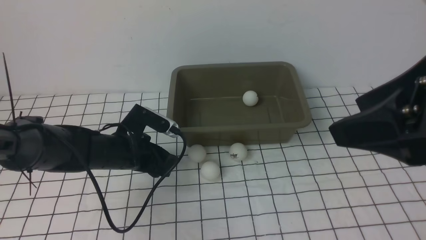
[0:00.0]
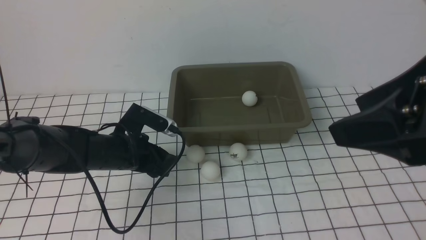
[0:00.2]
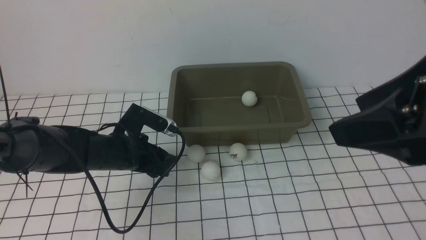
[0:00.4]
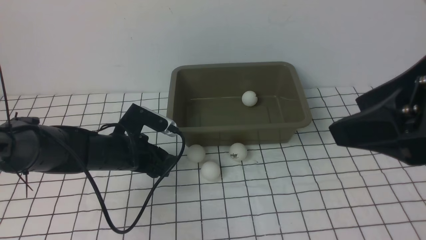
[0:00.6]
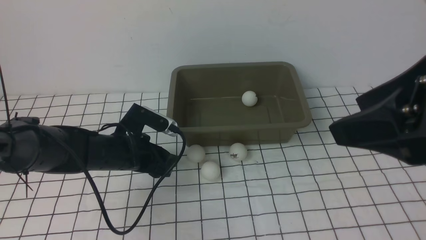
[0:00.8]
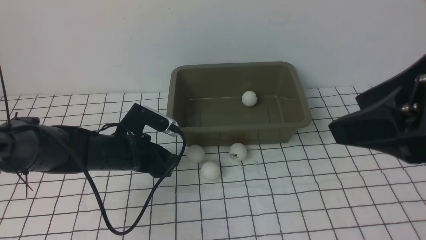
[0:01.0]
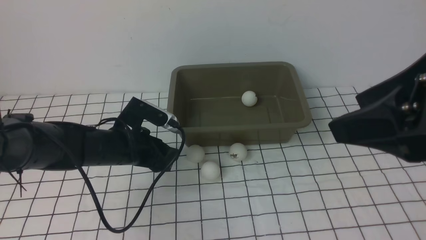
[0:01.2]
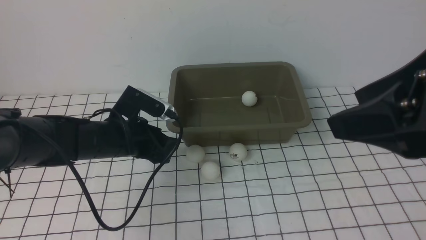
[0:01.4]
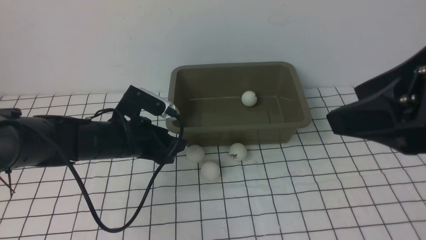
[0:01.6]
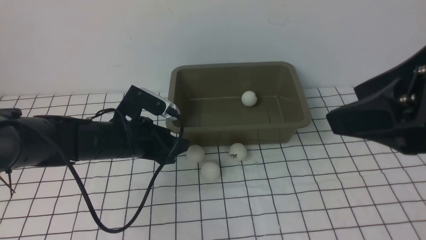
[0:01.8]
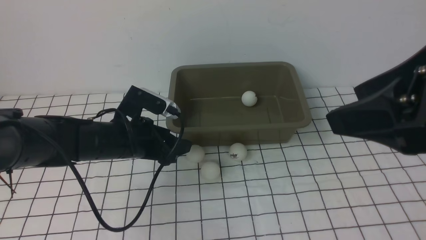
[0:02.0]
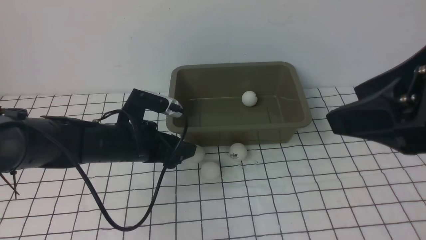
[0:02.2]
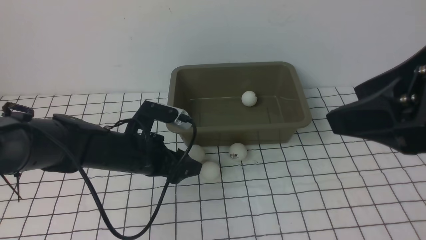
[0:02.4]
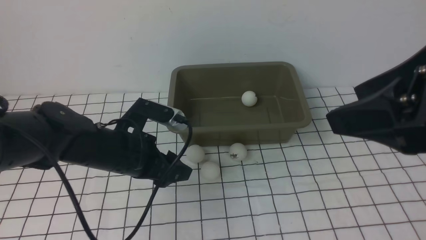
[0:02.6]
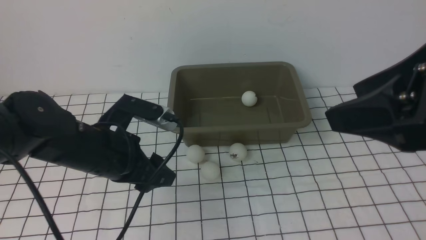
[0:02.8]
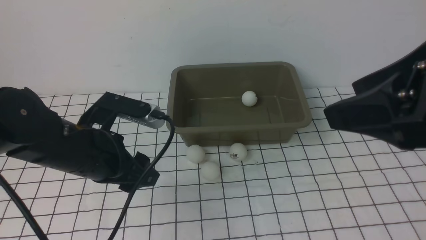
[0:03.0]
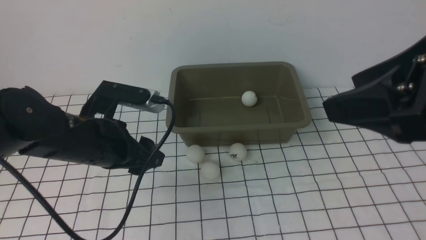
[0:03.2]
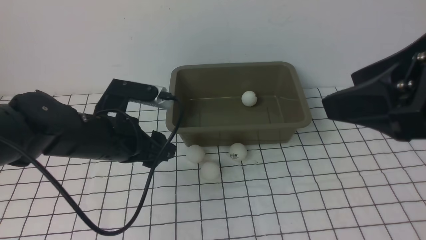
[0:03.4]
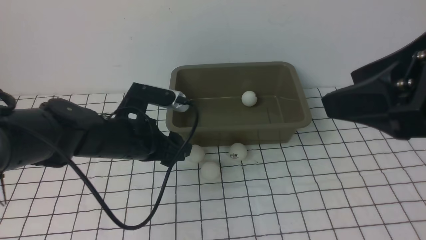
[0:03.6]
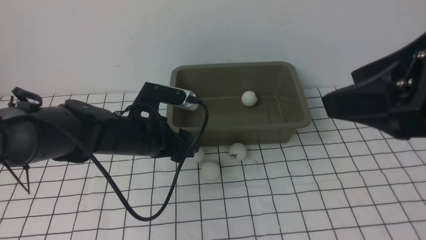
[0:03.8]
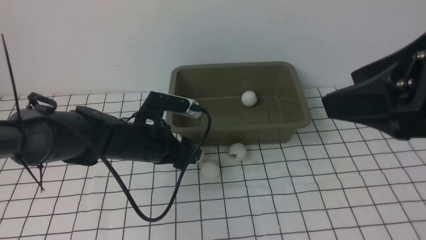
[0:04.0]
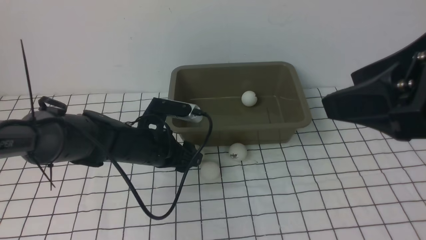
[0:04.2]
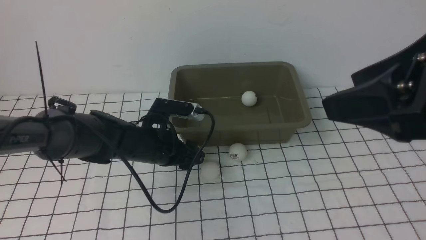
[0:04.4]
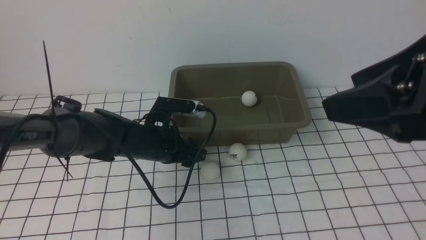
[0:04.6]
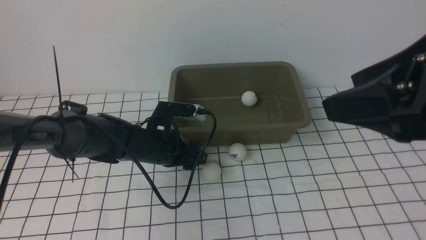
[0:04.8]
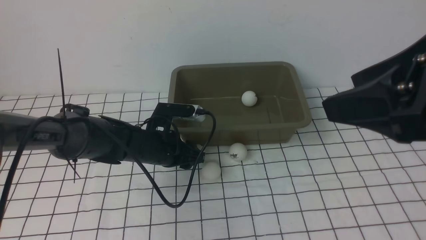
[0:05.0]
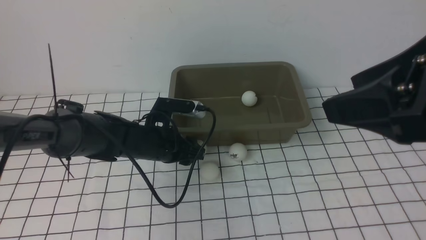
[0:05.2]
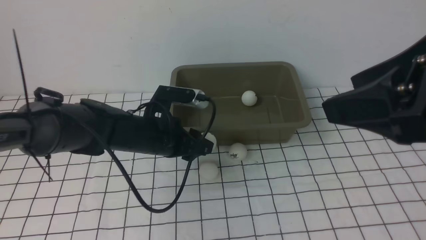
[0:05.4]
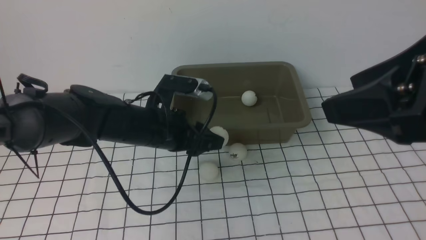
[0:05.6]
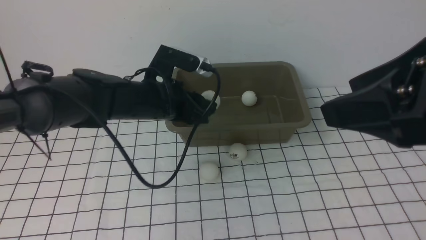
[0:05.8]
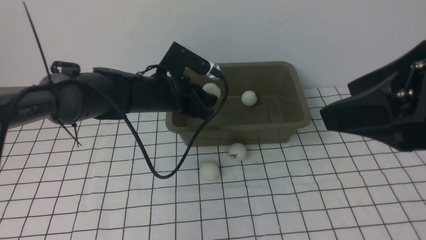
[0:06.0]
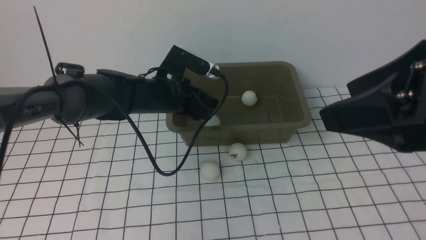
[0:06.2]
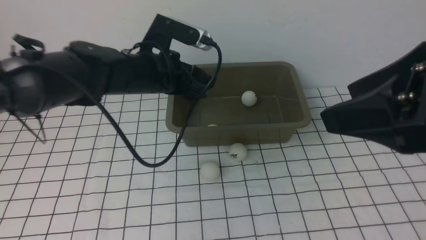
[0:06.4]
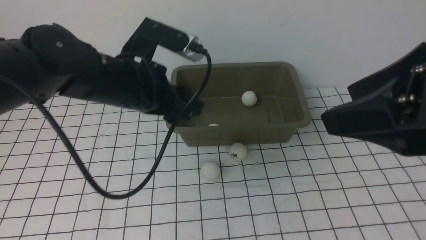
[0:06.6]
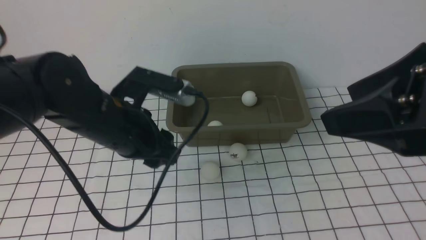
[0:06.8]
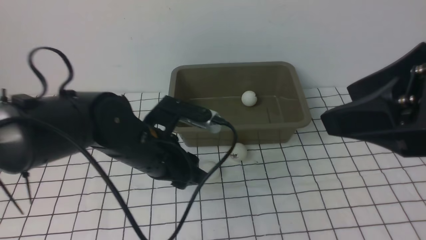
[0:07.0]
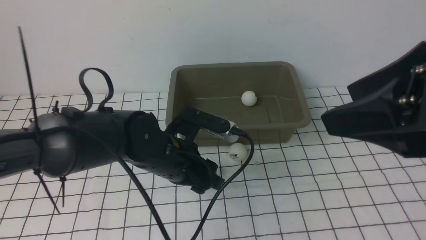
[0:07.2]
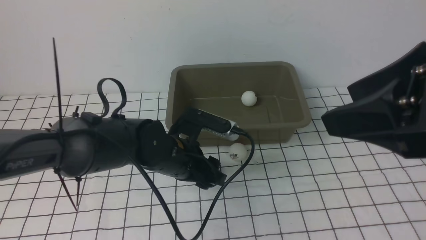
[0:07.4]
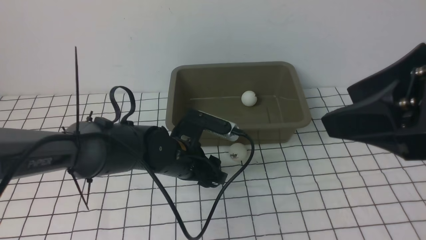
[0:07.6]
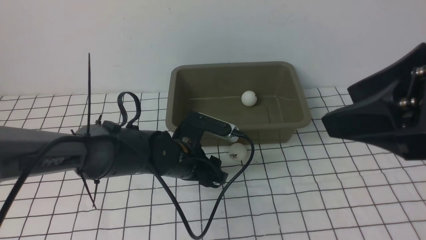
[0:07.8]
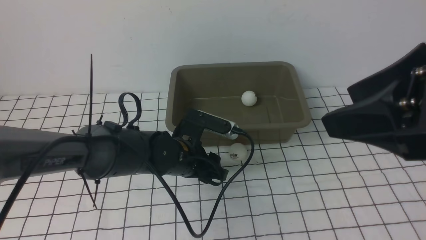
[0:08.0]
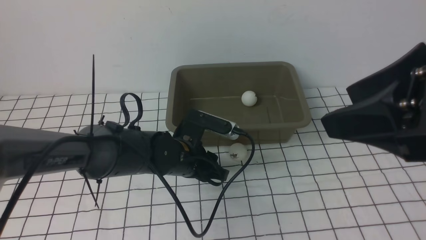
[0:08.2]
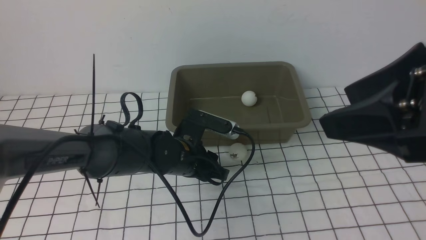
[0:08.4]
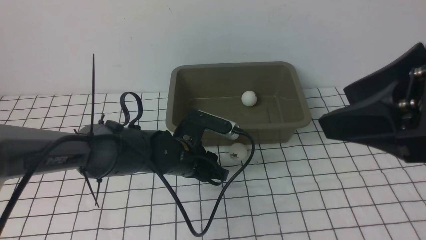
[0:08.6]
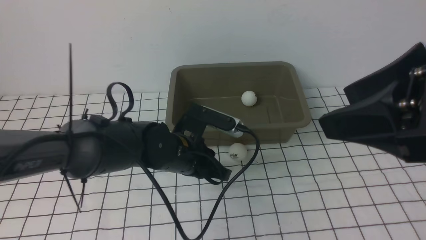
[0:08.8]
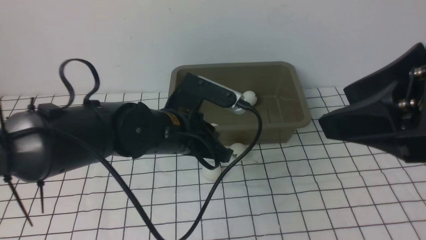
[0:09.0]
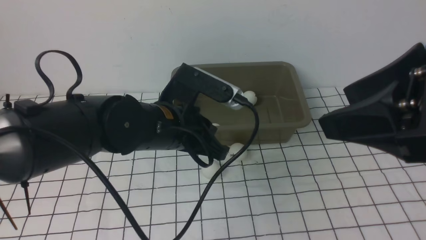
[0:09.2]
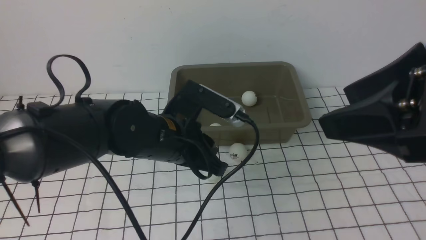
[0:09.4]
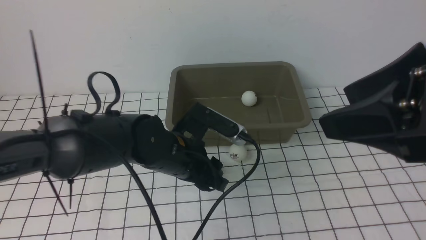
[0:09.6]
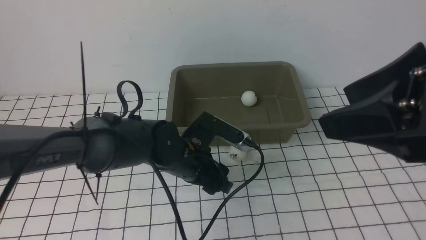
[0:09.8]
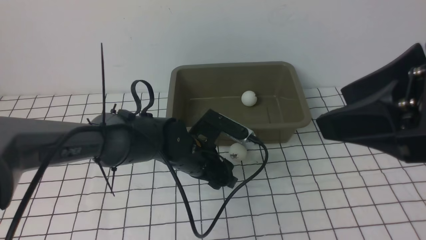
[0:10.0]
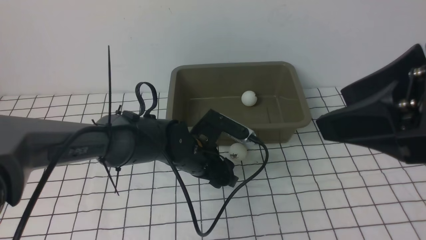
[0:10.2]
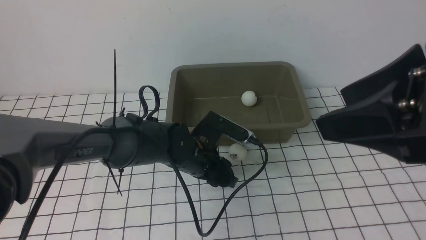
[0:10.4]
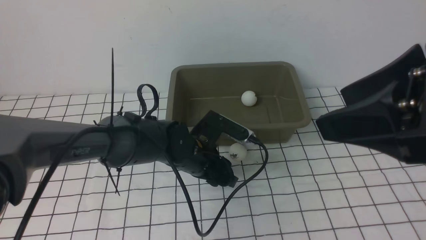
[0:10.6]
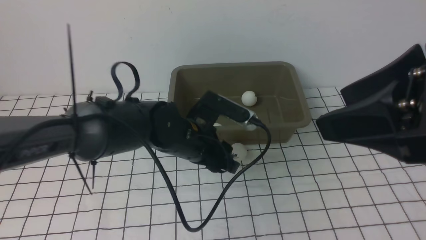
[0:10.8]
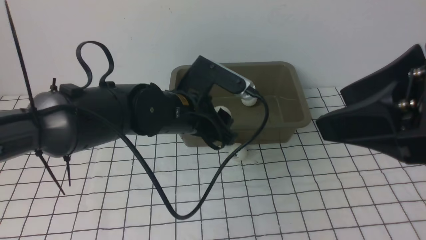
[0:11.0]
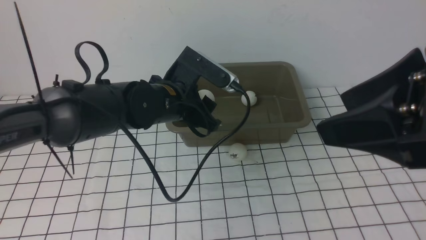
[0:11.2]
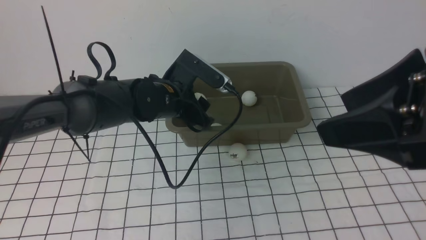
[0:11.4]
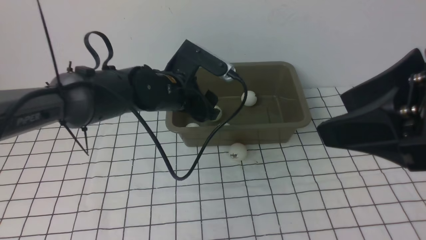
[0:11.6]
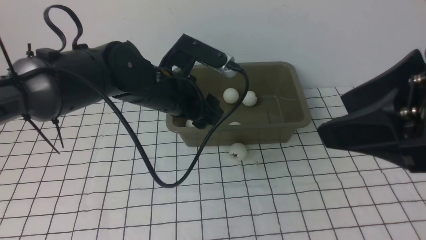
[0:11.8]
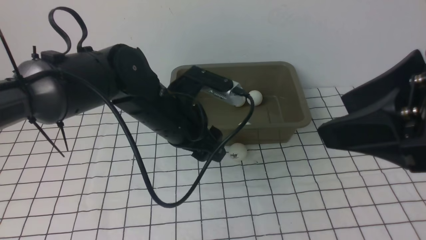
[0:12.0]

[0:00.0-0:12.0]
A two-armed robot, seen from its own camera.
Step, 0:00.0 to 0:05.4: use the left arm to clamp the table tennis ball closest to it.
Step, 0:05.6 to 0:06.2: use the left arm to put the table tennis ball into the box.
Step, 0:06.6 to 0:10.8: use the left arm to clamp the table tennis ball closest to it.
Step, 0:11.2 to 0:11.6: use the left arm to put the table tennis ball into the box.
0:00.0 to 0:01.6: The grippers move only a little.
0:01.6 to 0:03.0: The left gripper travels backward and upward by approximately 10 cm.
0:03.0 to 0:04.4: The left gripper moves downward and forward, about 10 cm.
0:04.4 to 0:06.0: The left gripper is displaced upward by approximately 5 cm.
0:06.0 to 0:07.6: The left gripper travels backward and downward by approximately 10 cm.
0:07.6 to 0:09.0: The left gripper is displaced upward by approximately 5 cm, and closes.
0:09.0 to 0:10.4: The left gripper heads downward, covering roughly 10 cm, and opens up.
0:10.4 to 0:12.0: The left gripper heads upward, covering about 10 cm.

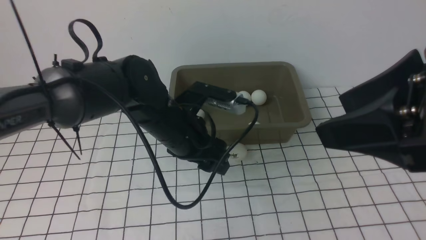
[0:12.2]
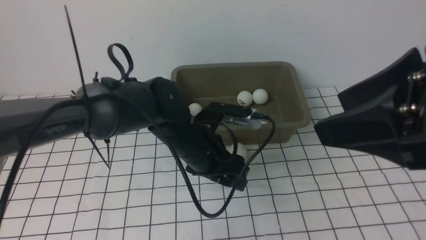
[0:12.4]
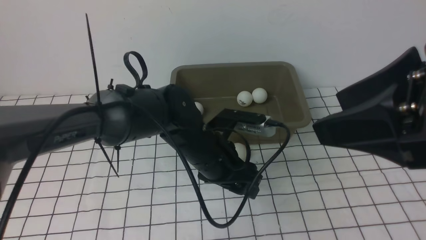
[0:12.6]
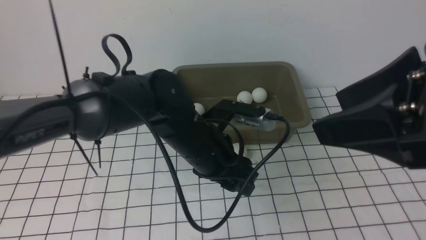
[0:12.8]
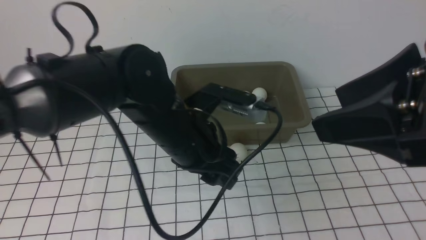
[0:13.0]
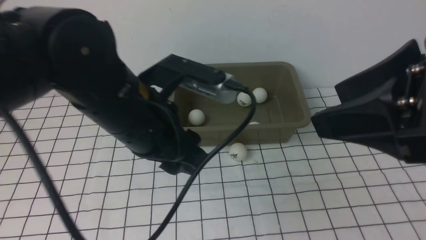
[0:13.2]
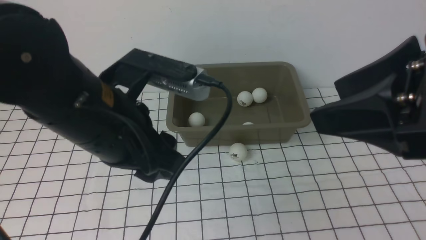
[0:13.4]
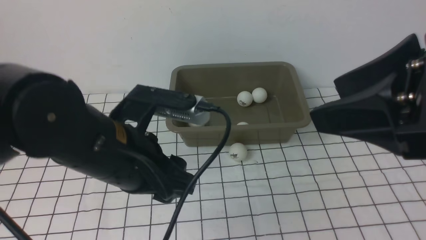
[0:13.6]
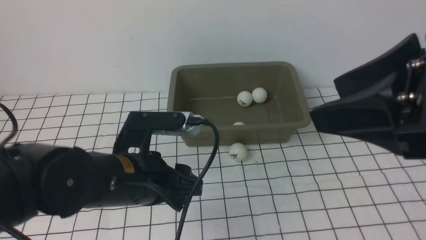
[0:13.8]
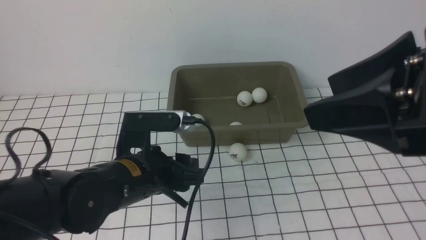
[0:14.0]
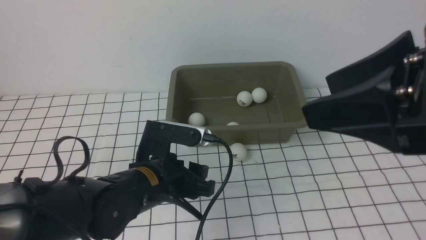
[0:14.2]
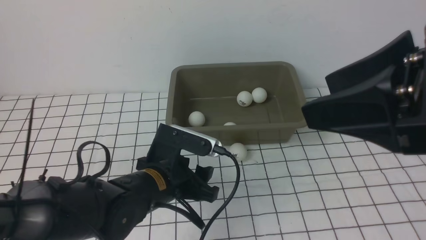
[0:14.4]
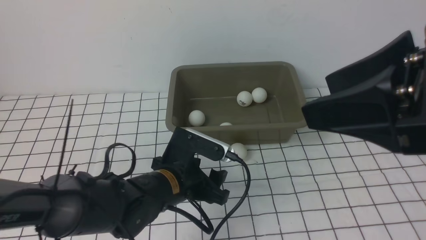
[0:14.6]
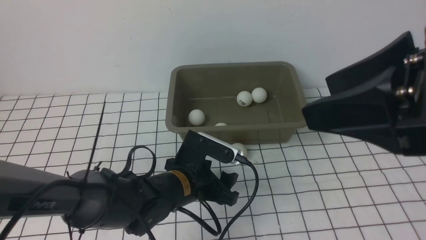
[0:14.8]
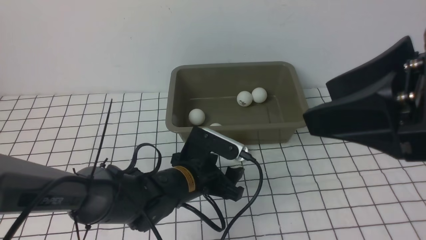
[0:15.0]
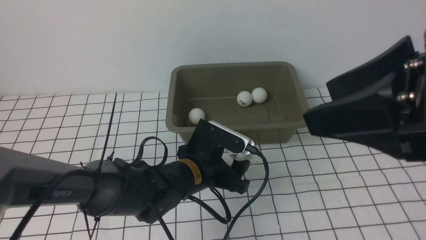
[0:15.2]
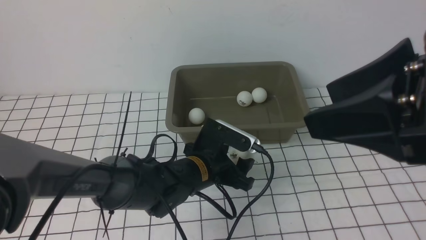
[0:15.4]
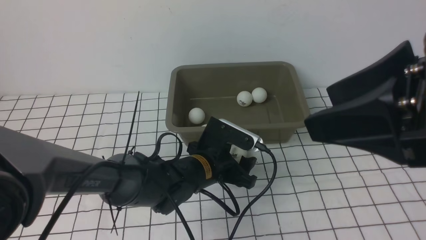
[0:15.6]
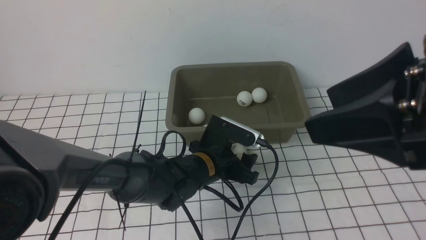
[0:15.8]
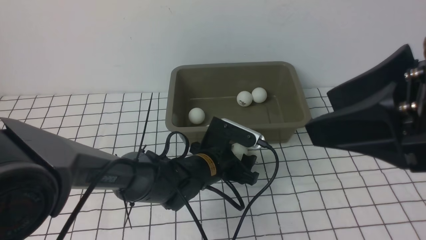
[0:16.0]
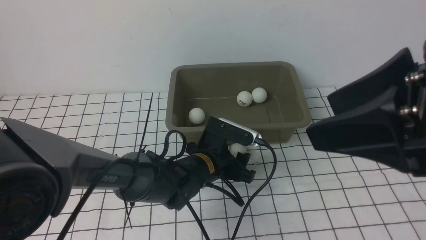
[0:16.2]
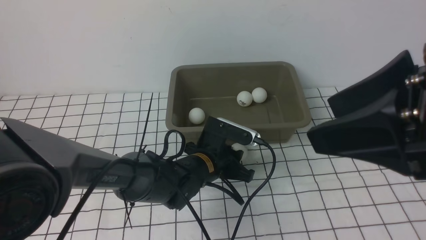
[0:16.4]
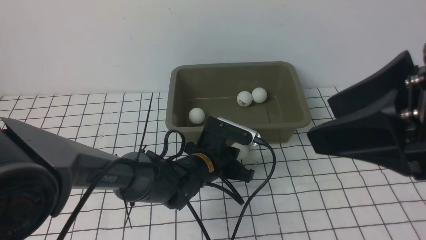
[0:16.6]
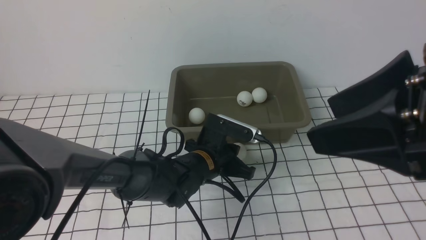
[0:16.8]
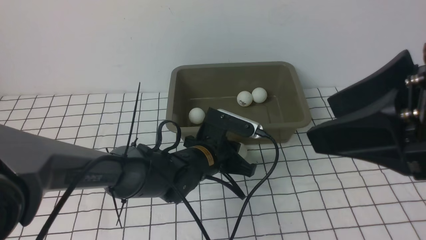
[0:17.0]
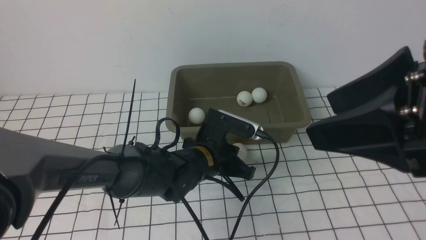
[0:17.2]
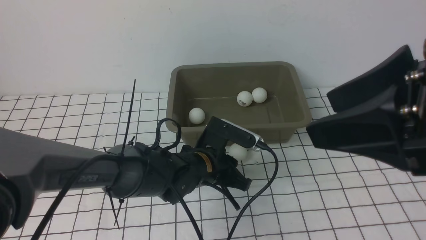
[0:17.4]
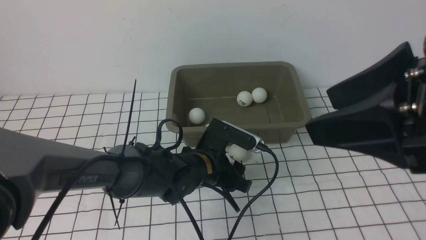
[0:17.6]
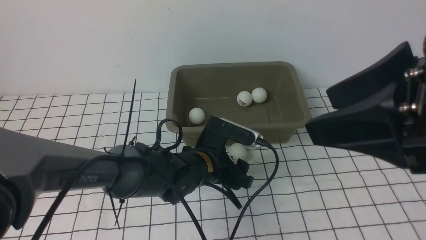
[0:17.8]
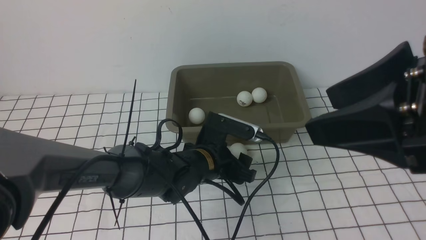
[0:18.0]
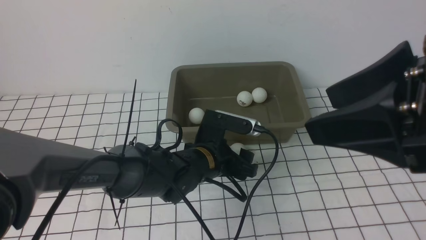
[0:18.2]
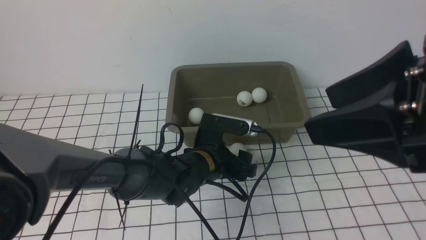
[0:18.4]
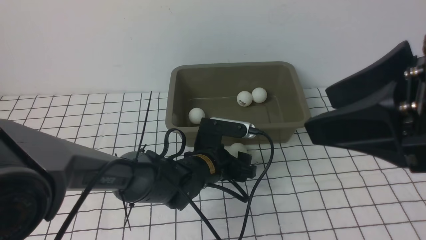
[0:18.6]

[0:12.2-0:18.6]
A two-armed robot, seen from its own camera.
0:12.2 to 0:13.8: The left gripper shifts approximately 10 cm backward, and reaches some 10 cm upward, then returns.
0:13.8 to 0:15.4: The left gripper travels downward, forward and to the right by approximately 15 cm.
0:15.4 to 0:17.0: The left gripper closes up.
0:17.0 to 0:18.6: The left gripper opens up.
